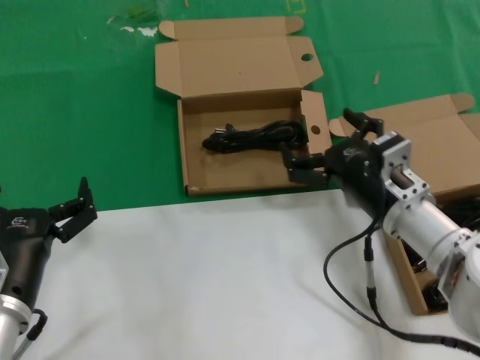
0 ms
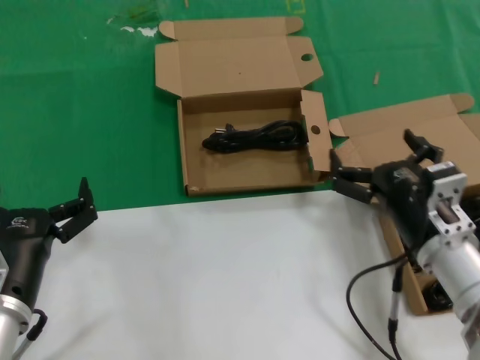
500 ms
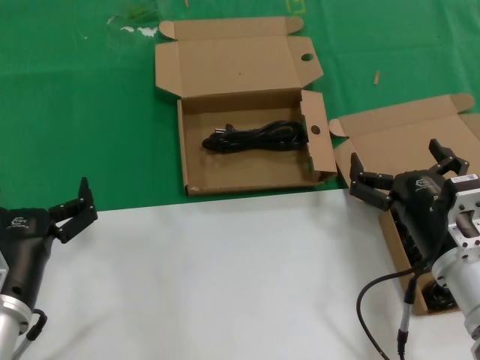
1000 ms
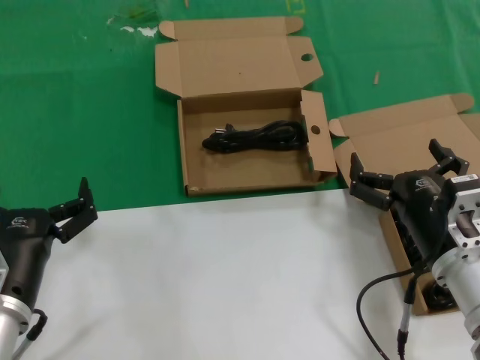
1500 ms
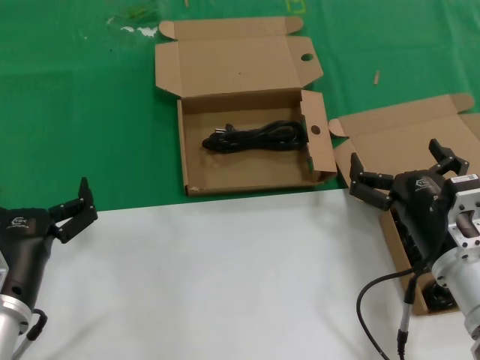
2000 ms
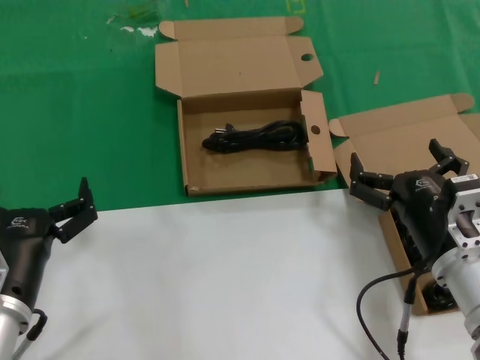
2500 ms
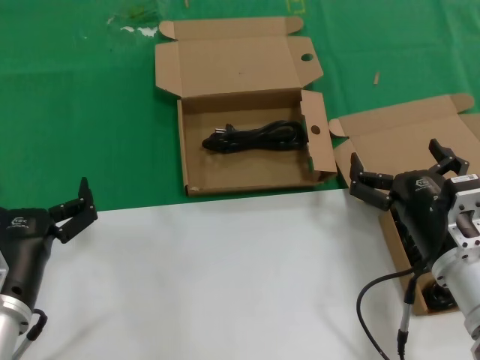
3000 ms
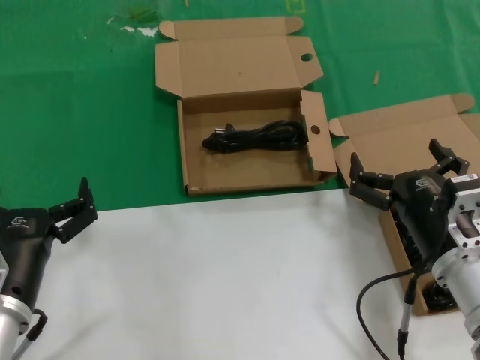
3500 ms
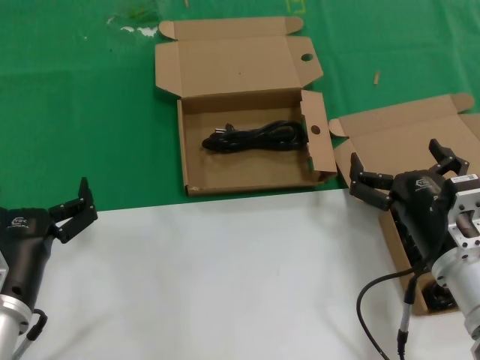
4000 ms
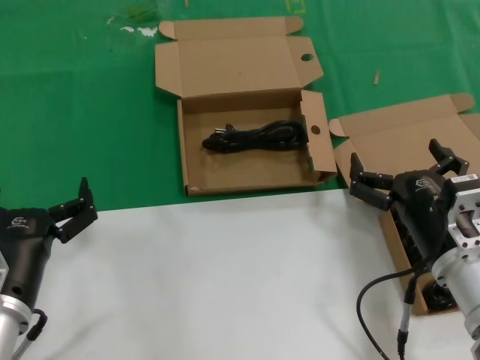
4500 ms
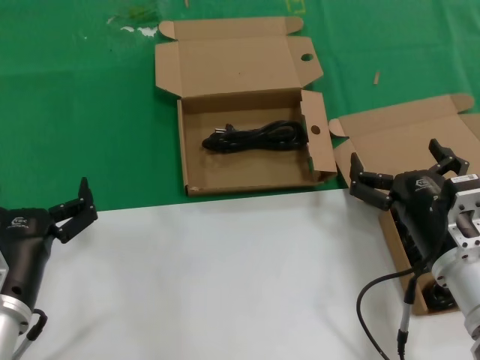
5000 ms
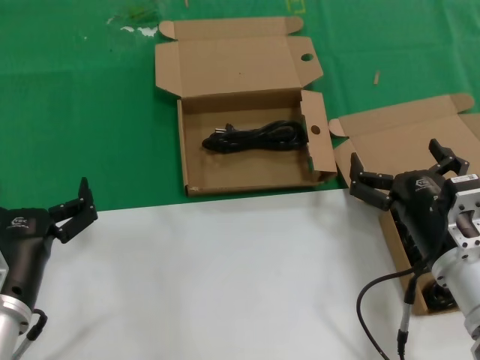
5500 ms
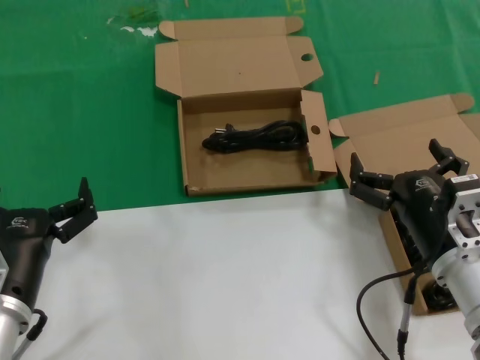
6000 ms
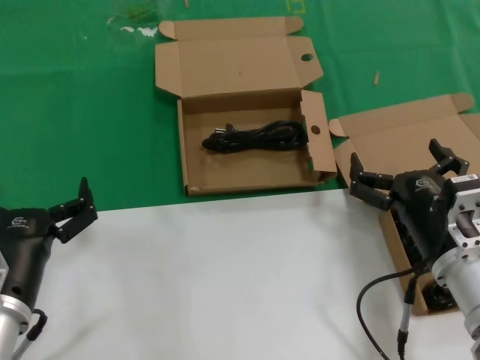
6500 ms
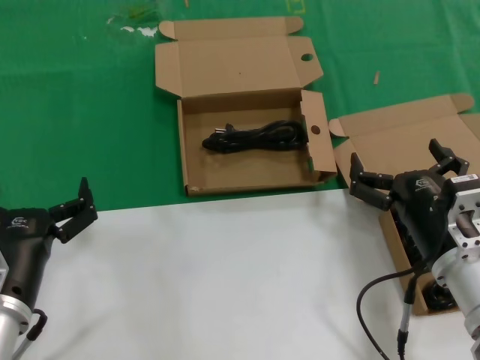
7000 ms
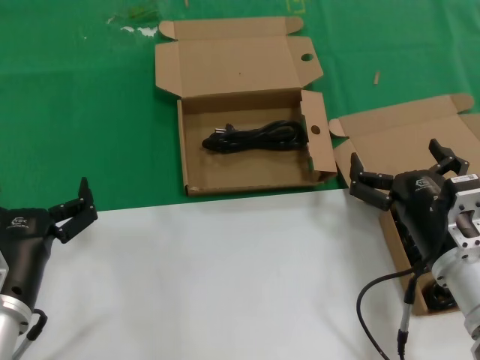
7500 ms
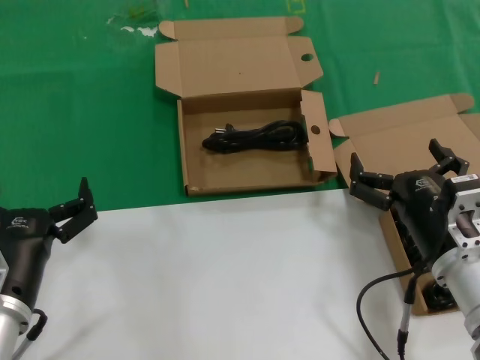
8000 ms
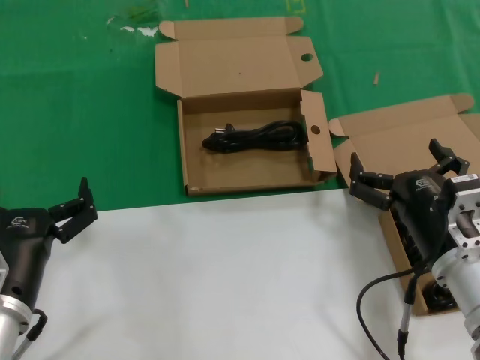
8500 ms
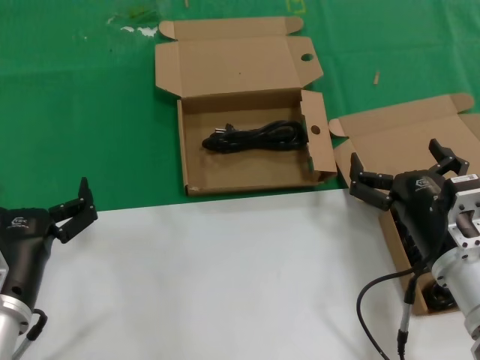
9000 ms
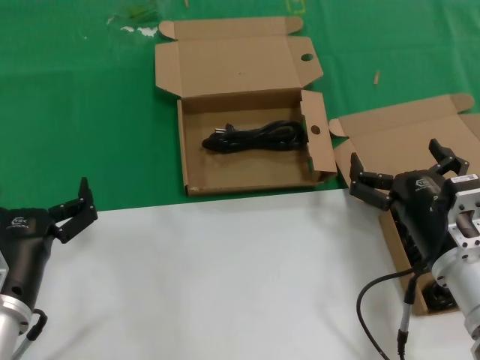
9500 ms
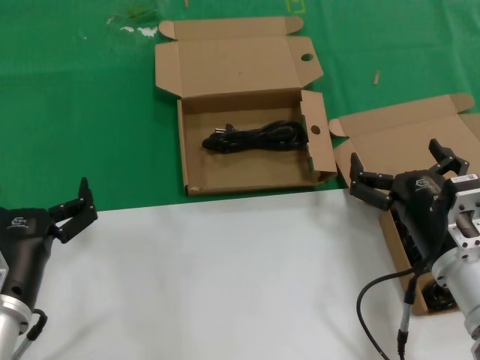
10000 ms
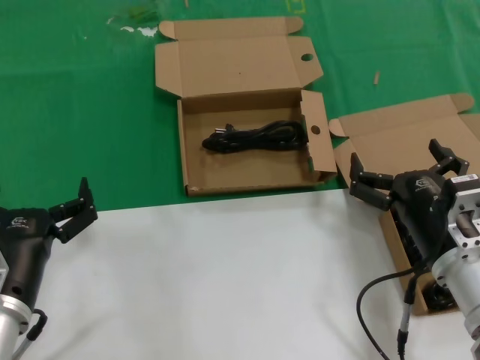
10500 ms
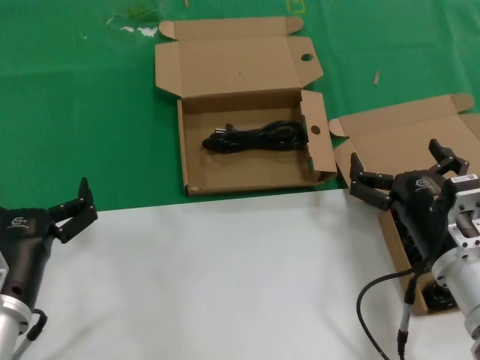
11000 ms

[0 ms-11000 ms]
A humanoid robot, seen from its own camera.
Task of the whole recording: take the parts from the box containing them and put them into an empty box.
0 ms to 2000 ms: The right hand travels backward by roughly 10 cm.
2000 ms to 11000 ms: The two hands keep their place.
